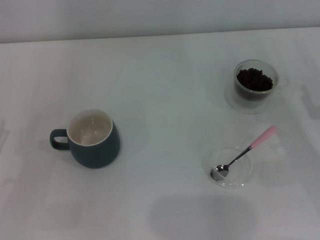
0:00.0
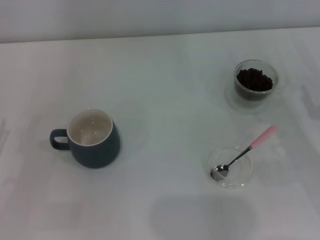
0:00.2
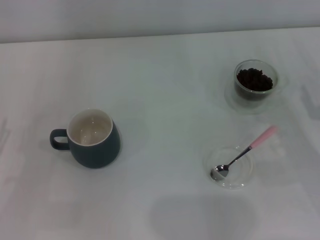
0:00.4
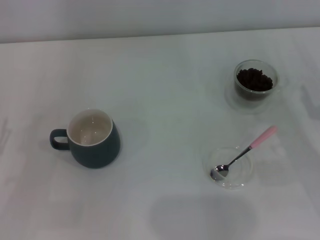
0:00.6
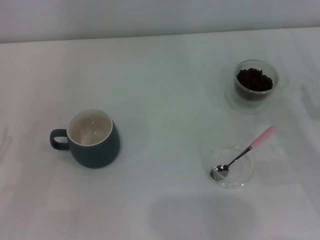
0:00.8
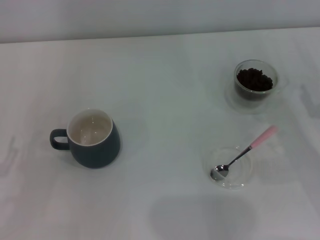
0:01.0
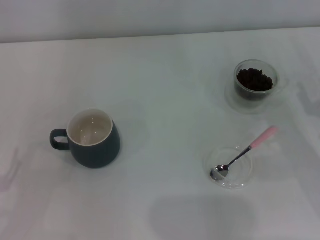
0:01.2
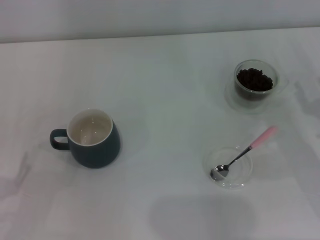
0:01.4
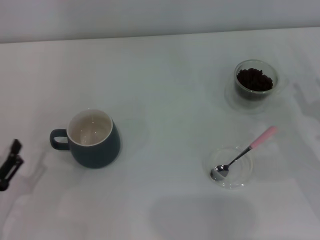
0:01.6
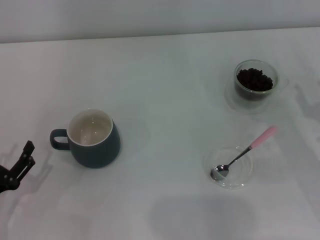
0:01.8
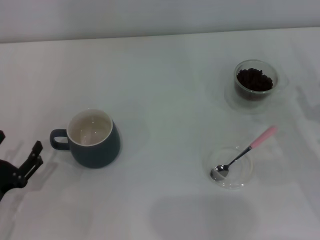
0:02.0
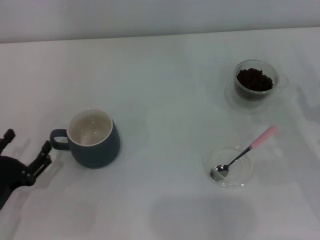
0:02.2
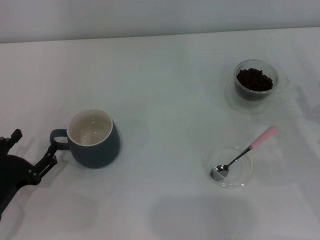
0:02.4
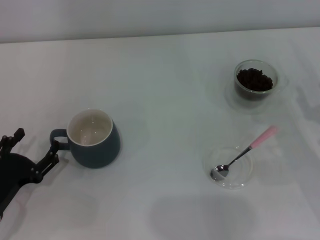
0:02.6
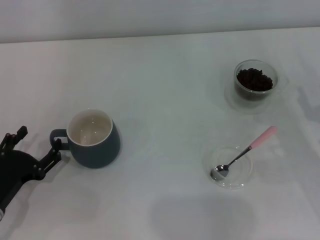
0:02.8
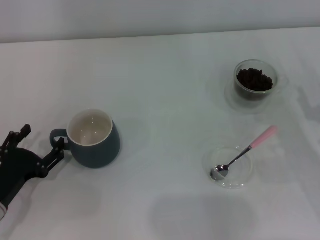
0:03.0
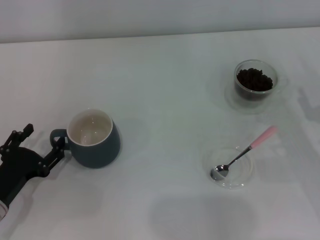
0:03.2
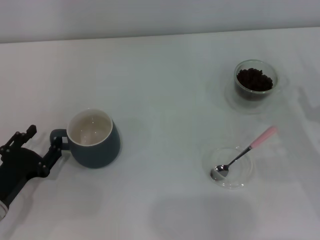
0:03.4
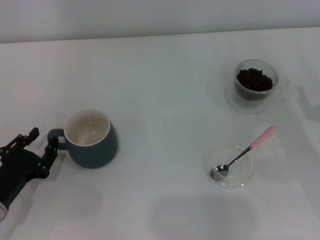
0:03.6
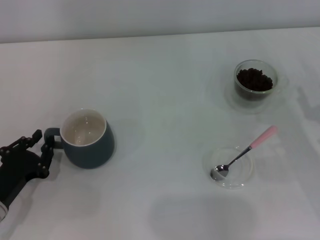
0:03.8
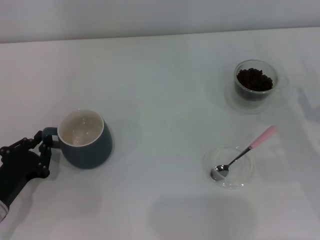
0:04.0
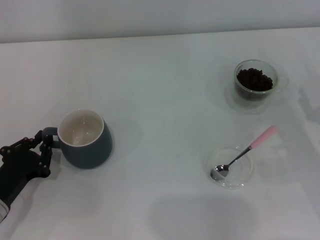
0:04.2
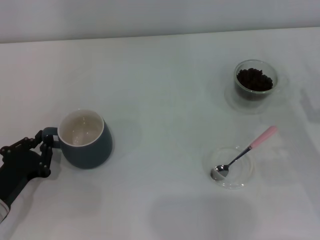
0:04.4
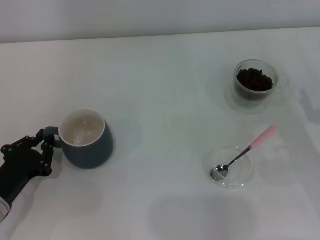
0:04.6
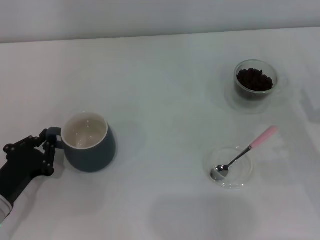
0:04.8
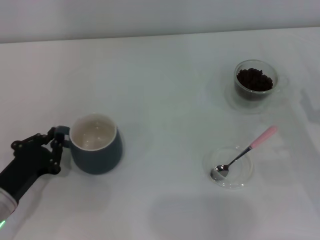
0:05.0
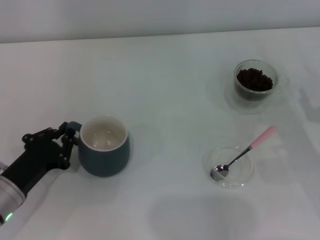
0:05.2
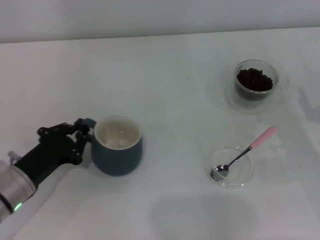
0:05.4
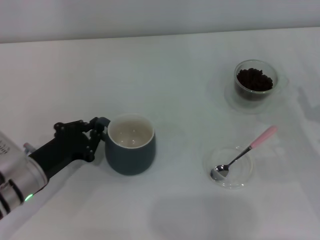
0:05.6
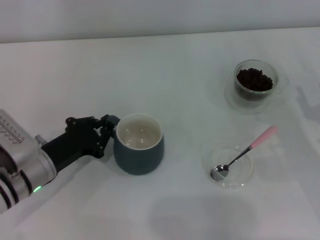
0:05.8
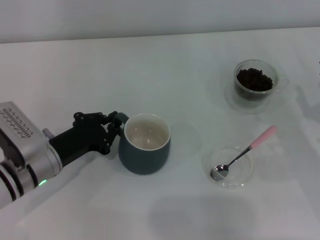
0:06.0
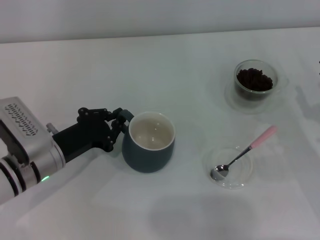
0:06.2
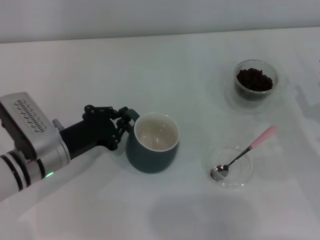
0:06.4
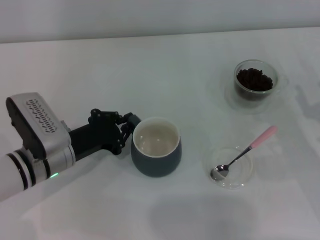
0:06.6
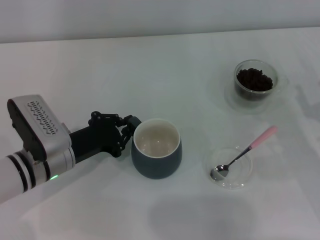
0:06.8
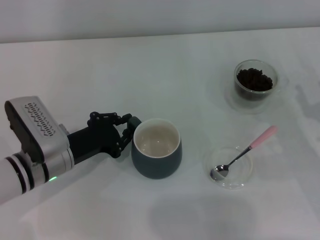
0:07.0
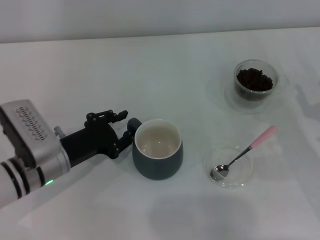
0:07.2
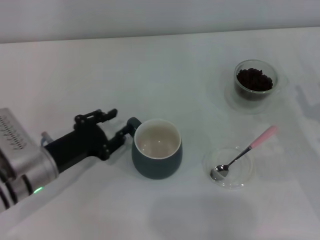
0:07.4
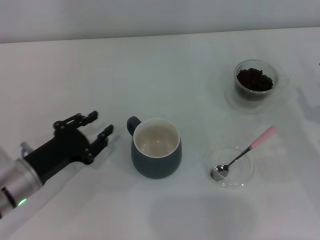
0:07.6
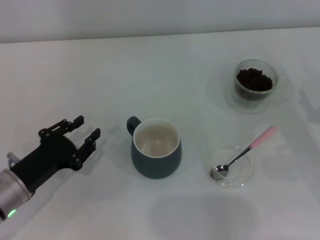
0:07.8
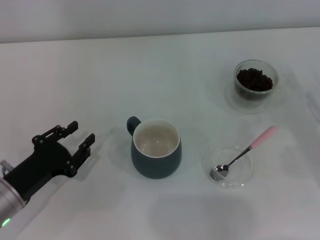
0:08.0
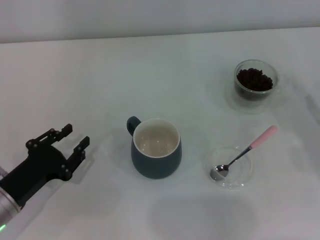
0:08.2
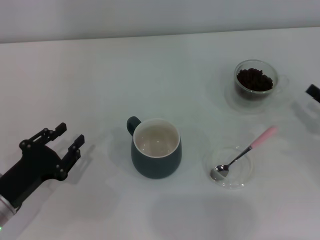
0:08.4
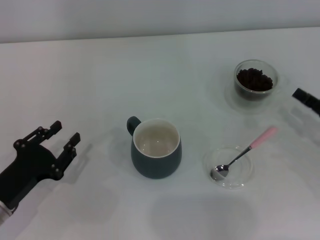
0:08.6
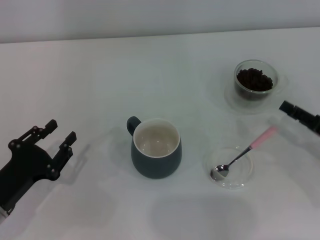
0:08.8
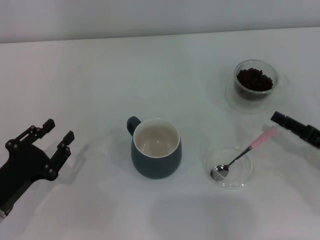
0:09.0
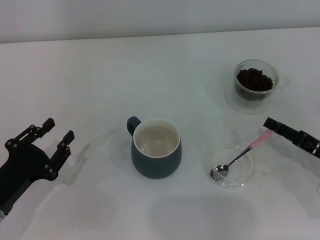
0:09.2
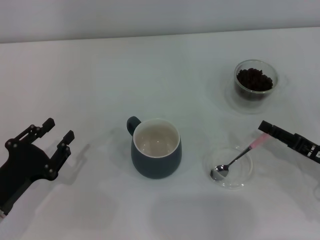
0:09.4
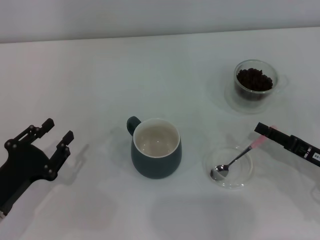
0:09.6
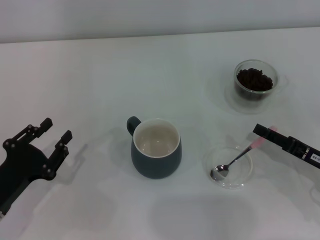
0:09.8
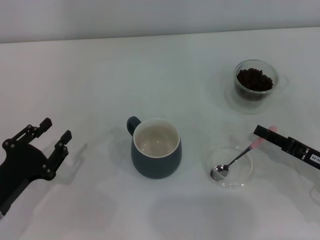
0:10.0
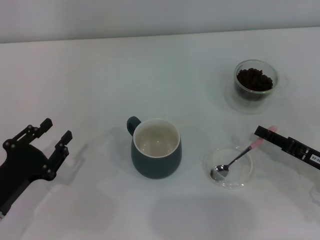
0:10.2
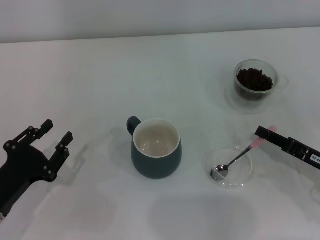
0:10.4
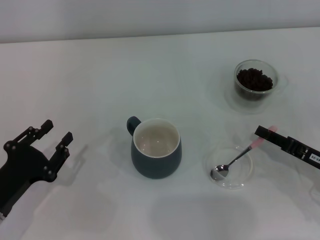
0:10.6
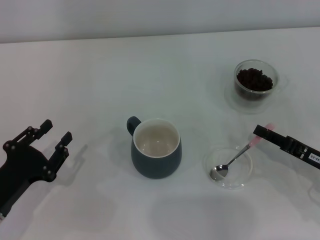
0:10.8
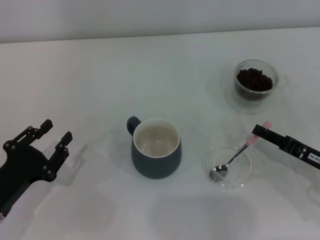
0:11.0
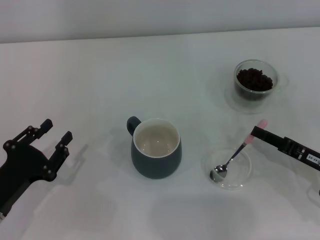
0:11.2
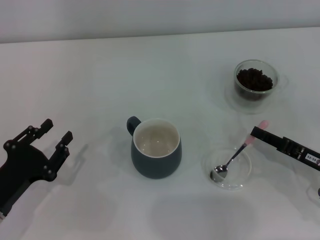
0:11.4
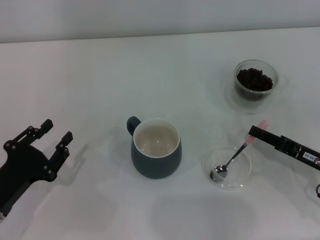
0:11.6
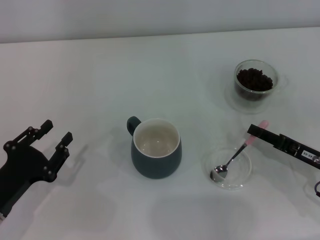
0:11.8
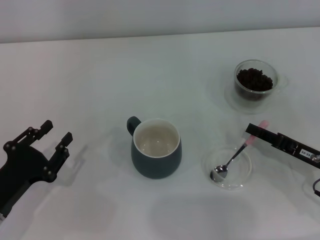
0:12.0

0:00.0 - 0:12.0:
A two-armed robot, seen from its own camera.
Task of the whole recording: Use a pink spoon to take out the coffee beans from the glass and pour them into the gray cup.
Step, 0:00.0 - 0:08.0: Move the cup to the center of view with the left gripper.
0:00.0 - 0:01.6: The left gripper shifts by approximately 5 cm.
0:01.6 - 0:03.0: The left gripper shifts some 5 cm forward.
0:03.0 - 0:04.4: The left gripper closes its fingers.
0:04.4 - 0:06.0: The left gripper goes about 10 cm forward and to the right.
0:06.0 - 0:07.6: The left gripper opens.
0:07.6 - 0:09.0: The left gripper heads backward, covering approximately 5 cm.
0:09.0 - 0:10.4: The right gripper closes up.
0:10.4 - 0:12.0: The grippers make only small movements.

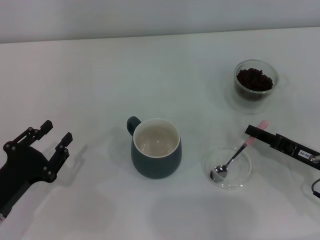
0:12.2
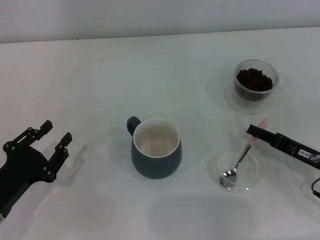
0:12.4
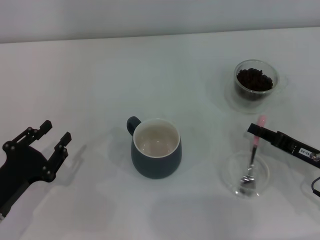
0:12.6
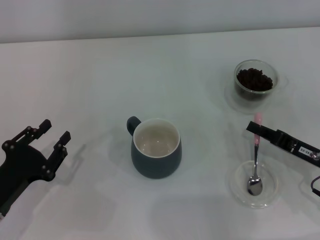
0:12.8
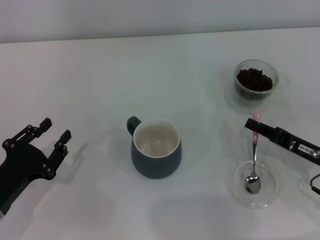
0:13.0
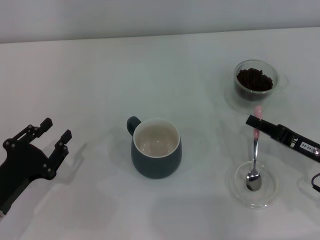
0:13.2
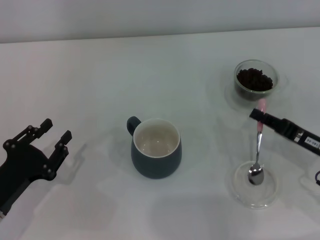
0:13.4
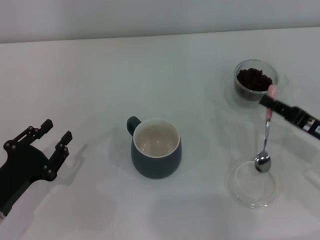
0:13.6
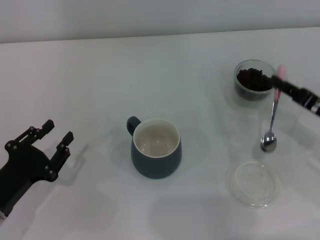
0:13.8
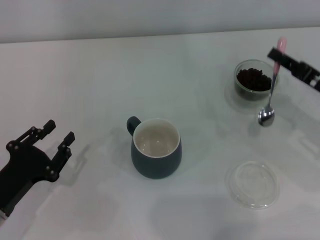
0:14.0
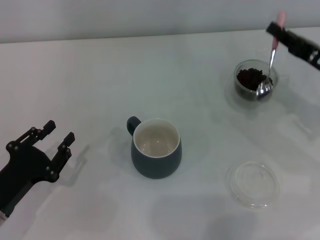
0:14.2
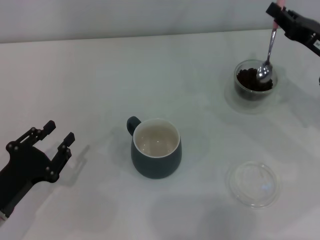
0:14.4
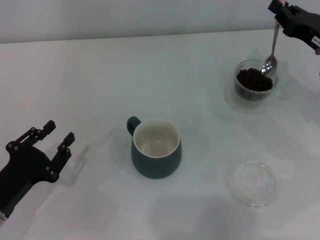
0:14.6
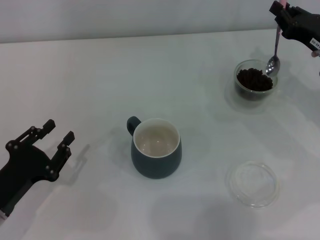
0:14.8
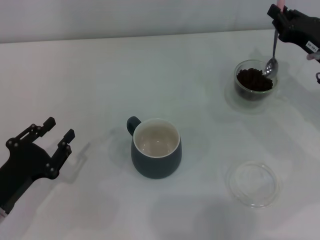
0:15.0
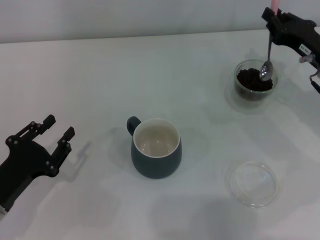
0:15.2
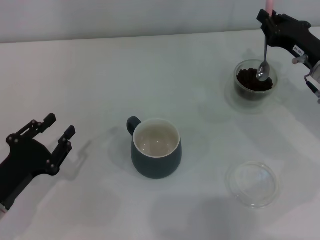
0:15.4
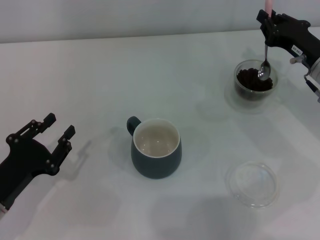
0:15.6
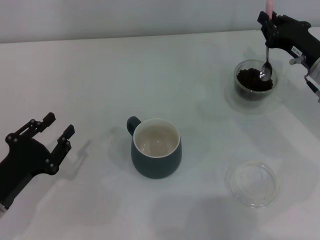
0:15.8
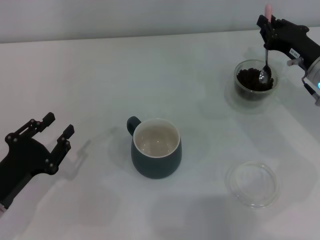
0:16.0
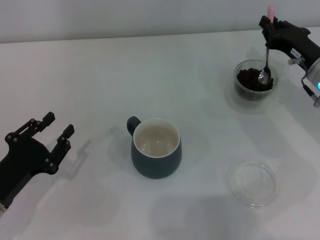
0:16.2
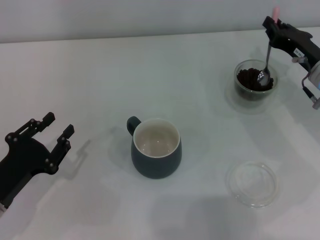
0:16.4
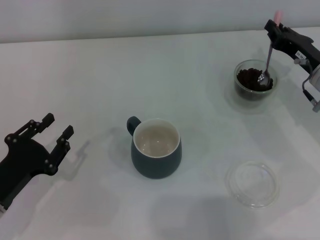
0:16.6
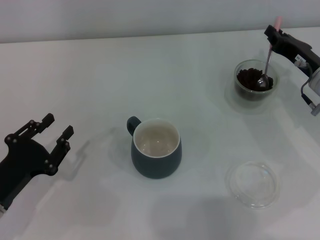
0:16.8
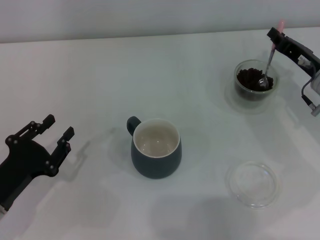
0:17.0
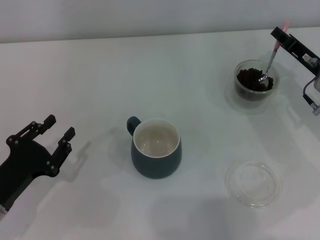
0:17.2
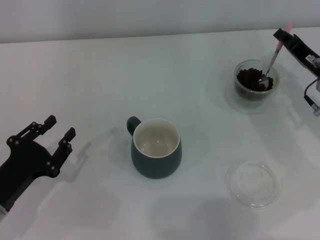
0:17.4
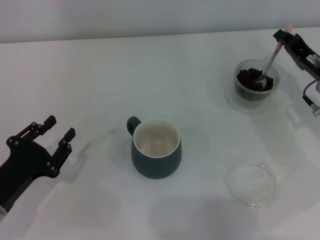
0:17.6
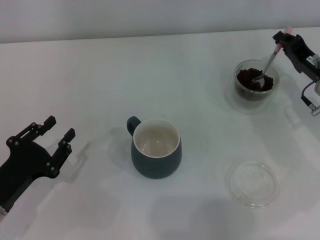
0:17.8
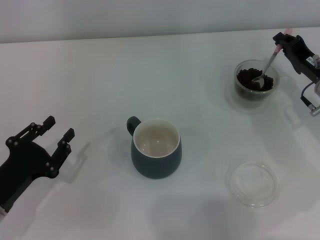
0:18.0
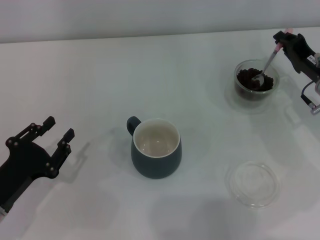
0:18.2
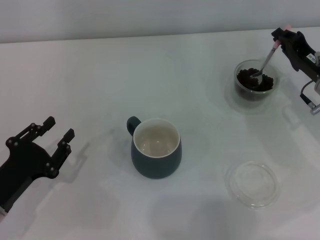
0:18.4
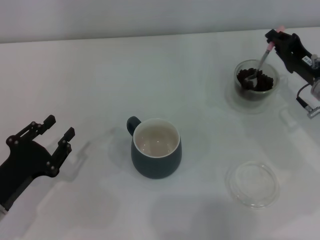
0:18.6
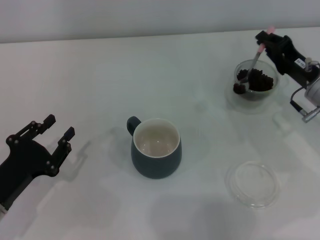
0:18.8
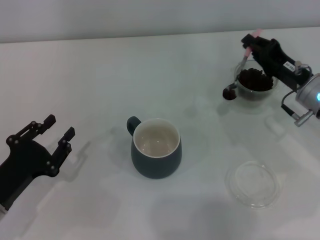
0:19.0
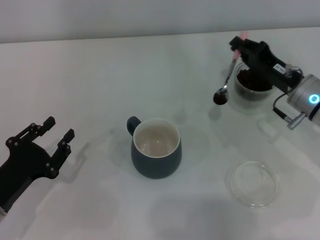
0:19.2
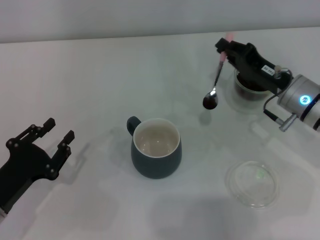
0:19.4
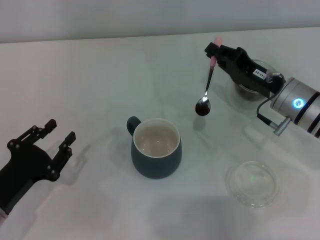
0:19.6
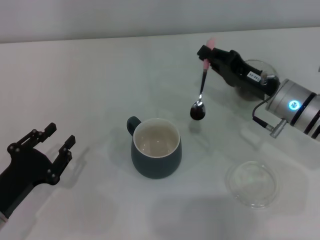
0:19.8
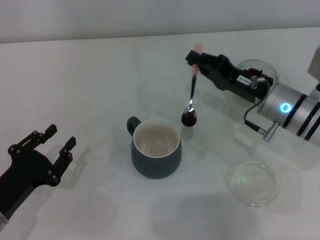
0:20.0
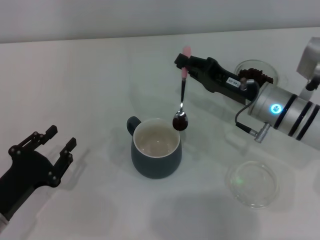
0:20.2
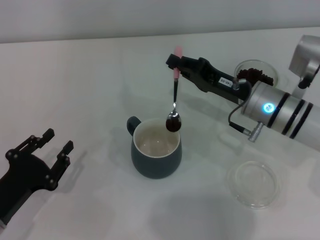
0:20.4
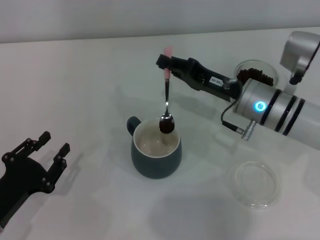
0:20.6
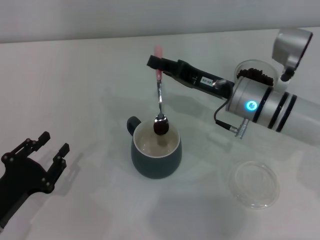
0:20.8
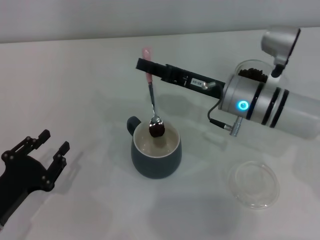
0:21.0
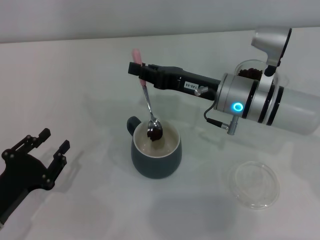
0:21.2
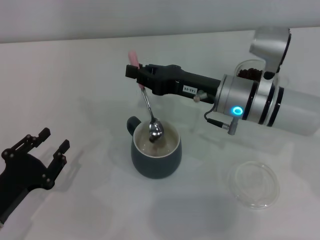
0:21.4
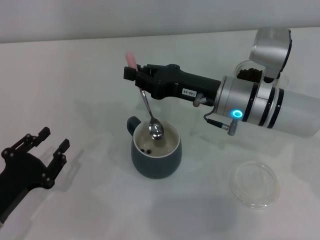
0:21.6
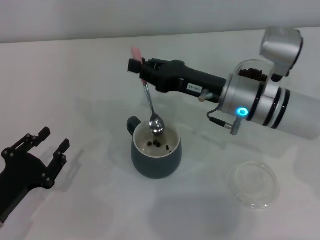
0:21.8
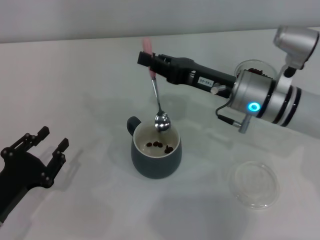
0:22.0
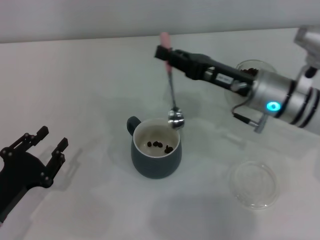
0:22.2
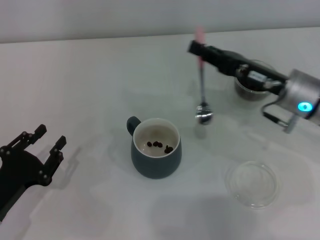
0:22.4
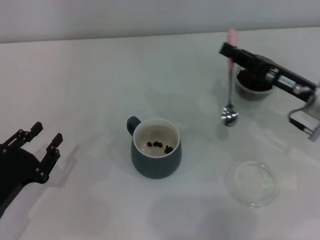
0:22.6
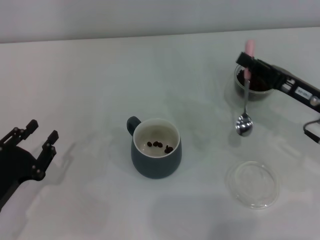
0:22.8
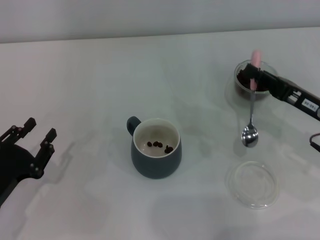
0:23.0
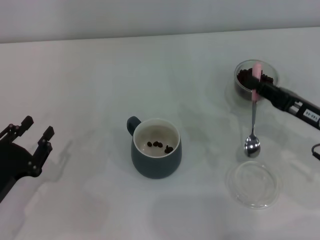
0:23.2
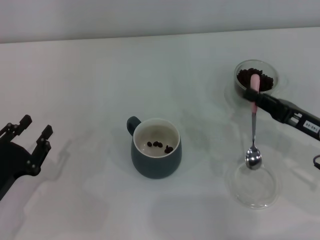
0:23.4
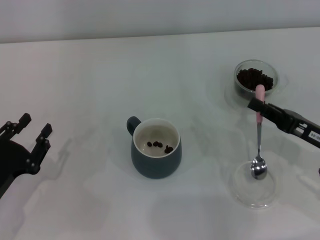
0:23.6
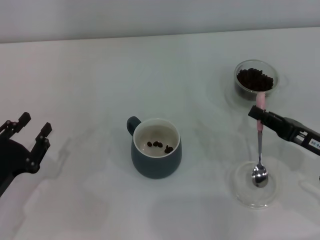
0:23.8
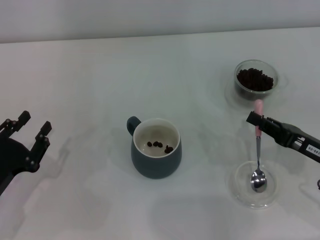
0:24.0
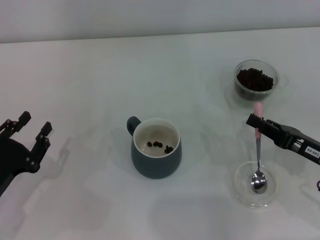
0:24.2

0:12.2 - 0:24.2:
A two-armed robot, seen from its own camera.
Task of the whole recording: Use a pink spoon to take out the coffee beans from the glass and pour them into the gray cup.
Step, 0:13.6 - 0:21.8: Scoop a spoonful of beans into the cup with the right gripper.
0:12.2 - 0:13.8: The right gripper changes place by roughly 5 cm, and closes up.
0:13.8 - 0:15.2: The right gripper shifts about 10 cm forward.
0:15.2 - 0:16.6: The grippers stay close to where they were, moving slightly.
0:18.2 - 0:19.8: The right gripper moves to the left, approximately 10 cm.
0:19.8 - 0:21.2: The right gripper shifts some 10 cm to the left.
0:21.2 - 0:22.6: The right gripper shifts roughly 10 cm to the right.
0:22.6 - 0:24.2: The right gripper heads backward and downward, covering some 10 cm.
